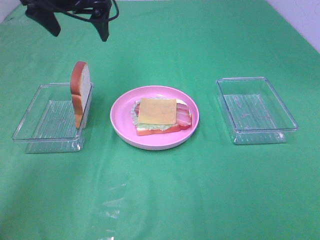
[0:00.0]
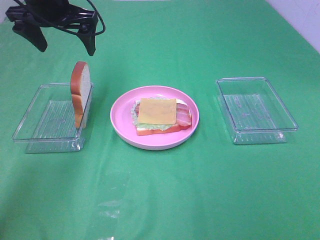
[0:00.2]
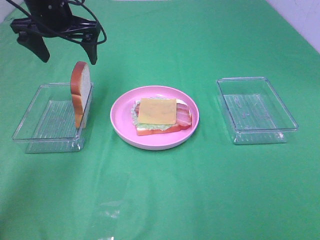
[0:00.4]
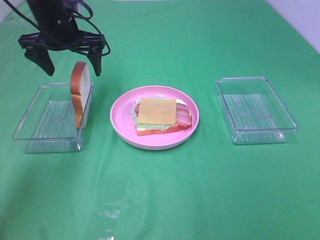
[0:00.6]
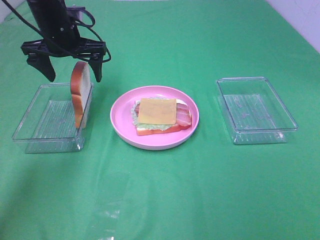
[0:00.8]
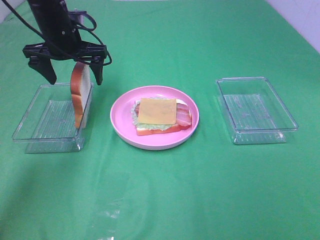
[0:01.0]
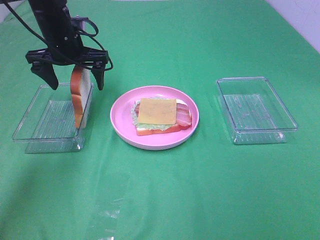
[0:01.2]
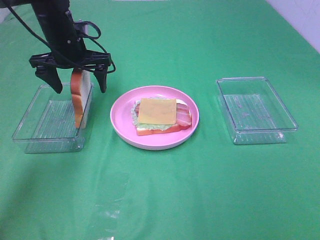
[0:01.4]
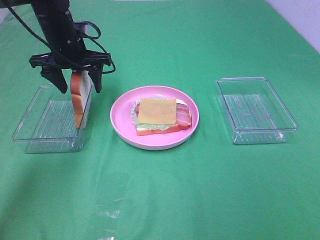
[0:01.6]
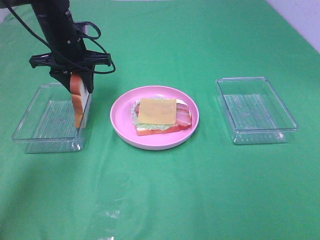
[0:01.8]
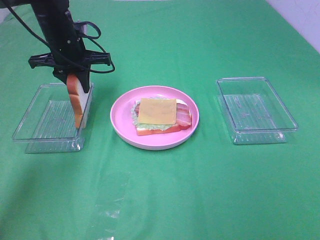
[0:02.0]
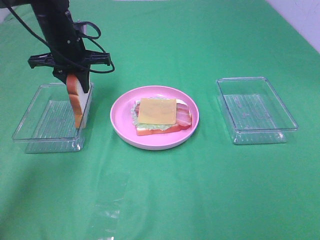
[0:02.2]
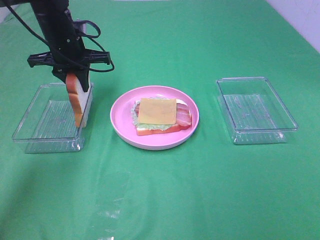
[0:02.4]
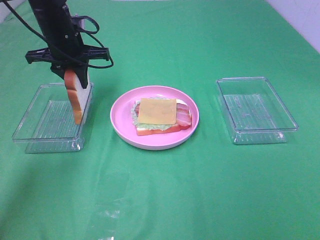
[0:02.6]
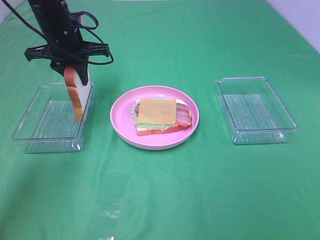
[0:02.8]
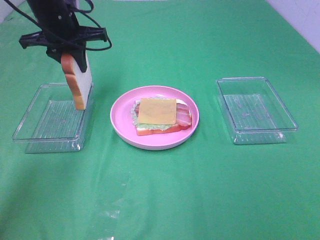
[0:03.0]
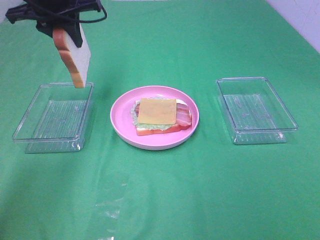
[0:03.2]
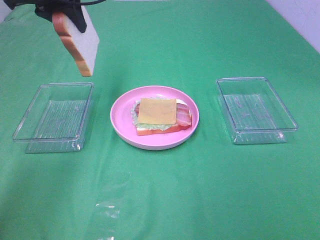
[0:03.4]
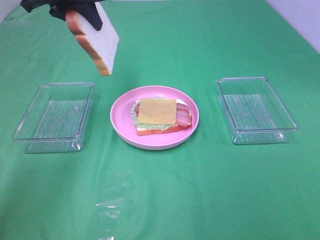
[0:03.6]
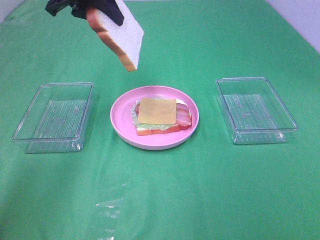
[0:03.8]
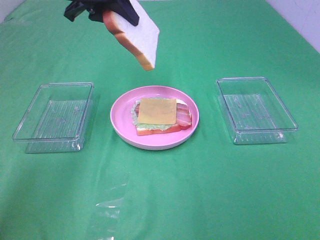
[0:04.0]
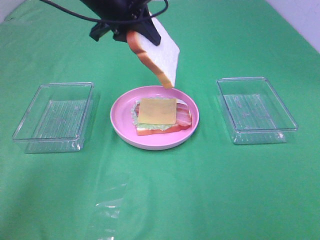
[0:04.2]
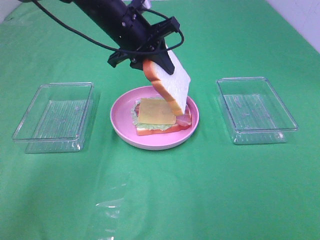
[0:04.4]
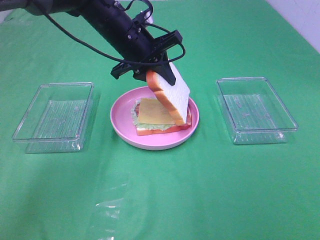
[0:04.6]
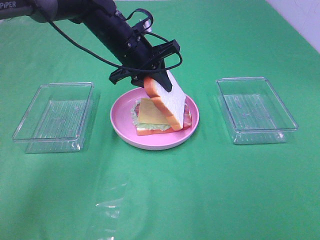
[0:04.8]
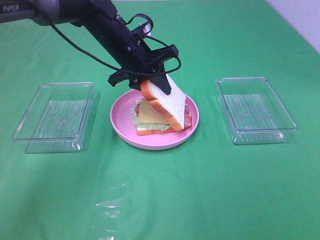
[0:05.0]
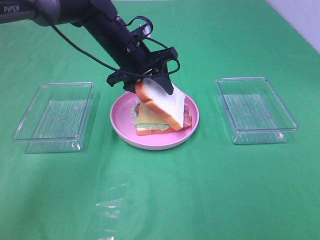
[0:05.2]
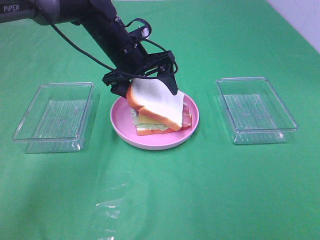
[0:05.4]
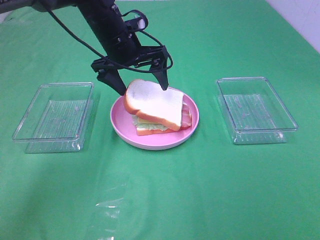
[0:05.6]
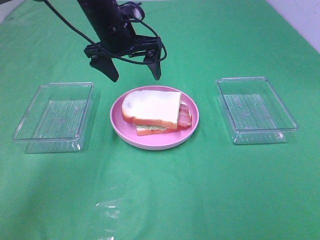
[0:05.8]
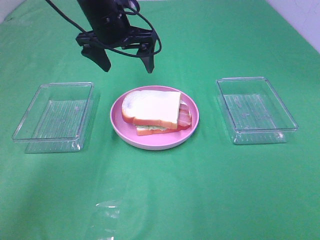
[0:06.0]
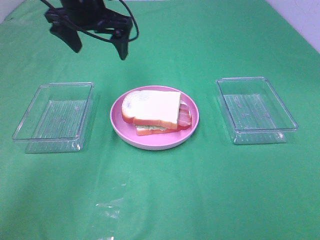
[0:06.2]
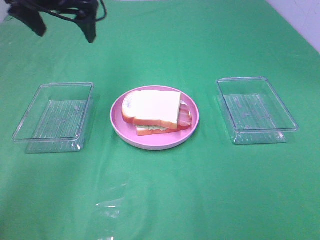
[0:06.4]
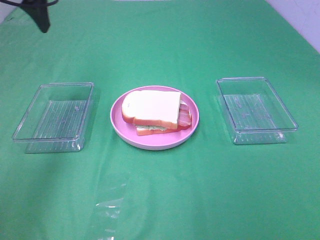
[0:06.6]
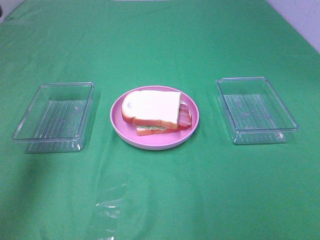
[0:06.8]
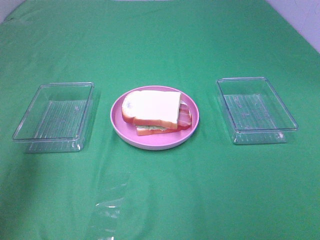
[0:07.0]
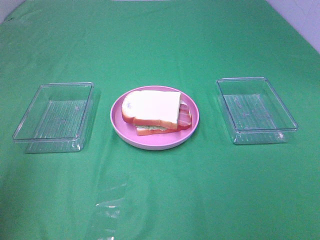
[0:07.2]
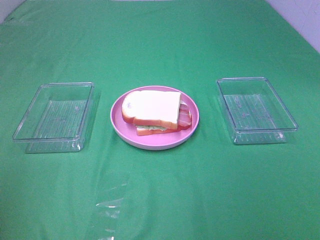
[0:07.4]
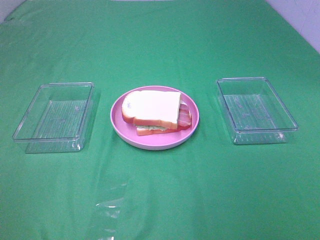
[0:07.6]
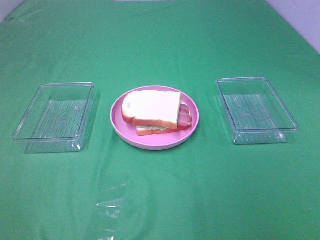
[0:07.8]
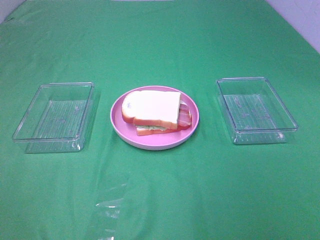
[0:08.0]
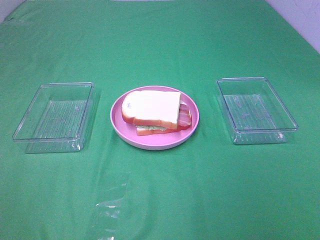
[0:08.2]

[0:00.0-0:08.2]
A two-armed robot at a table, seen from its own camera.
Task of the whole recording: Make sandwiches.
Step, 0:00.0 to 0:02.0: Left hand:grab the bread slice.
Step, 0:02.2 to 0:05.6: Left hand:place the bread slice on the cheese slice.
0:00.0 to 0:01.6: The left gripper shifts some 10 cm downward.
0:01.6 to 0:03.2: The left gripper is displaced upward by roughly 10 cm, and closes its fingers.
0:03.2 to 0:05.0: The left gripper moves to the right and downward, about 15 cm.
0:05.0 to 0:06.6: The left gripper travels to the left and upward by roughly 25 cm, and opens up.
0:06.6 to 0:08.2: The left gripper travels backward by some 40 cm.

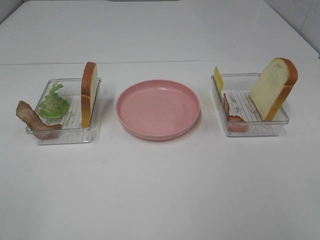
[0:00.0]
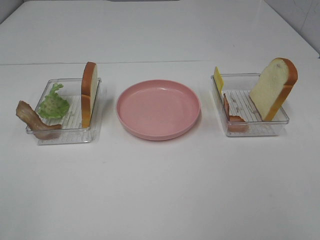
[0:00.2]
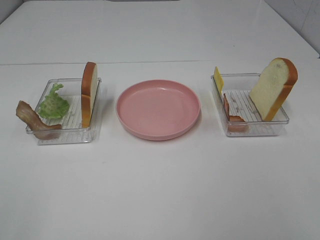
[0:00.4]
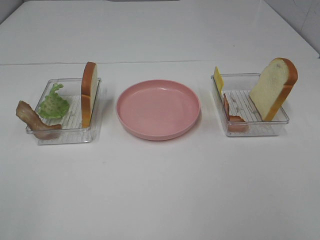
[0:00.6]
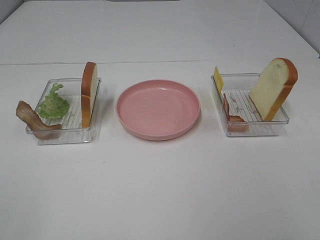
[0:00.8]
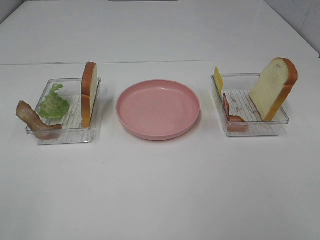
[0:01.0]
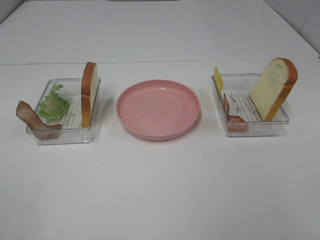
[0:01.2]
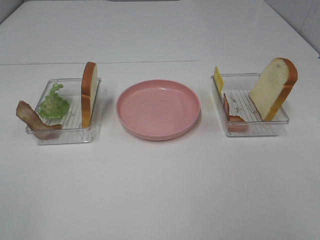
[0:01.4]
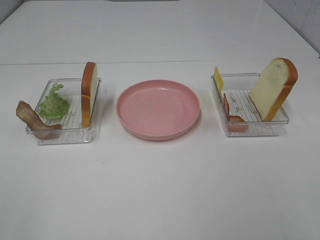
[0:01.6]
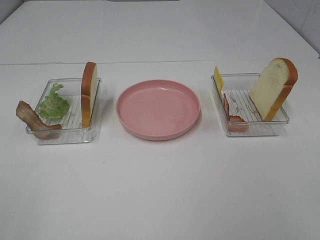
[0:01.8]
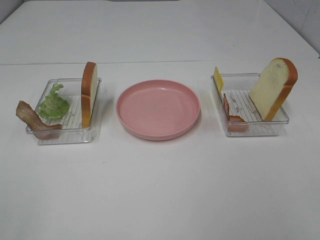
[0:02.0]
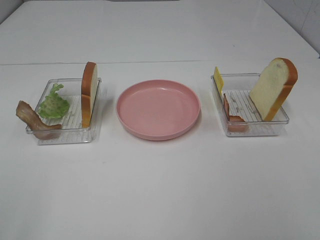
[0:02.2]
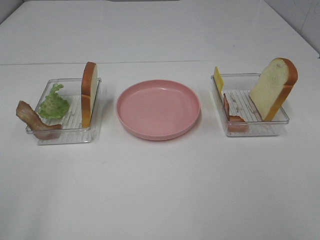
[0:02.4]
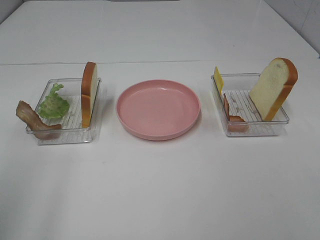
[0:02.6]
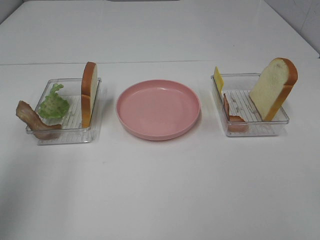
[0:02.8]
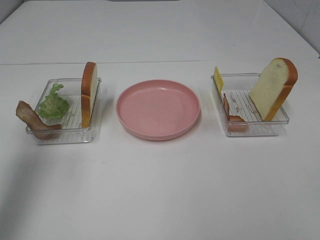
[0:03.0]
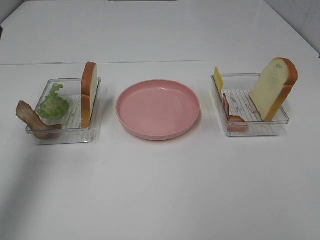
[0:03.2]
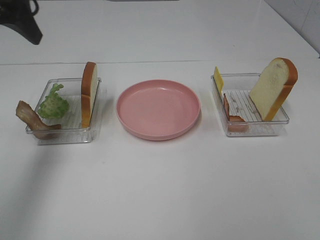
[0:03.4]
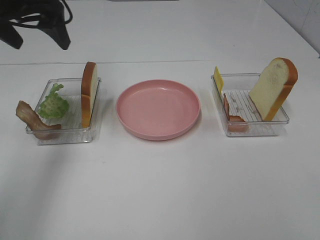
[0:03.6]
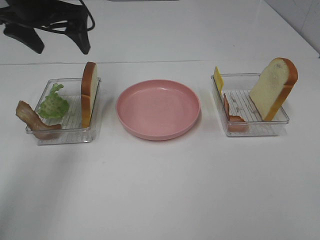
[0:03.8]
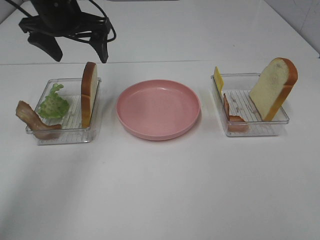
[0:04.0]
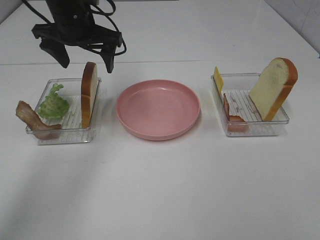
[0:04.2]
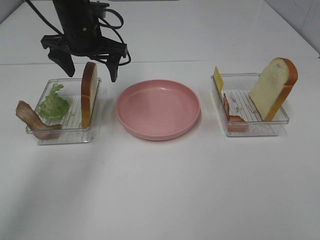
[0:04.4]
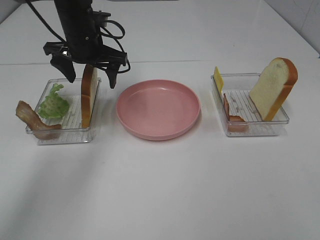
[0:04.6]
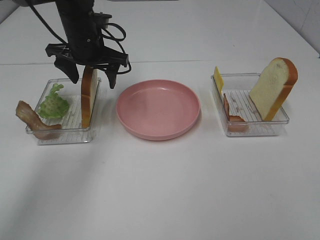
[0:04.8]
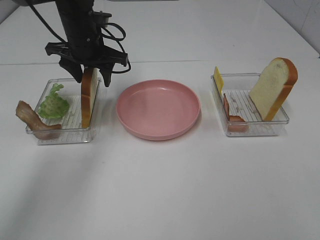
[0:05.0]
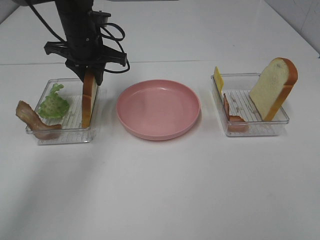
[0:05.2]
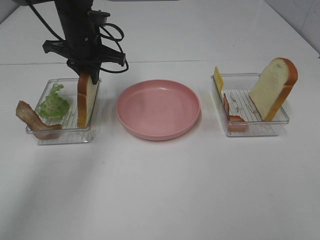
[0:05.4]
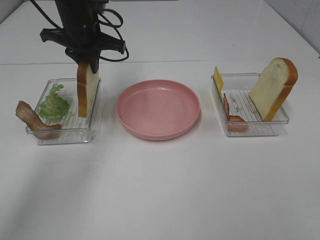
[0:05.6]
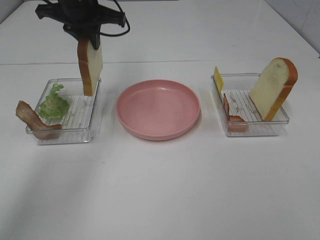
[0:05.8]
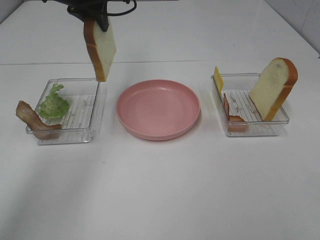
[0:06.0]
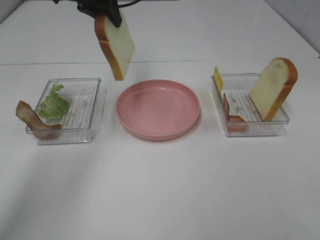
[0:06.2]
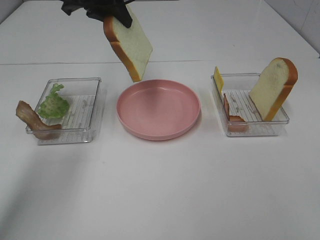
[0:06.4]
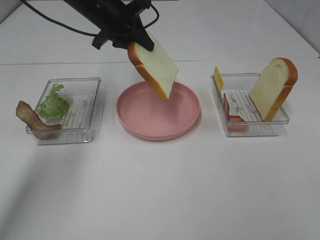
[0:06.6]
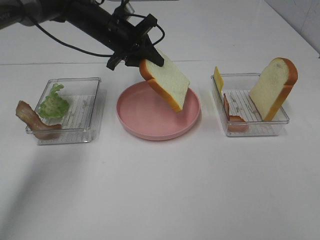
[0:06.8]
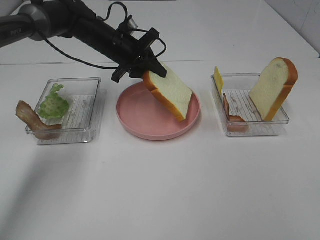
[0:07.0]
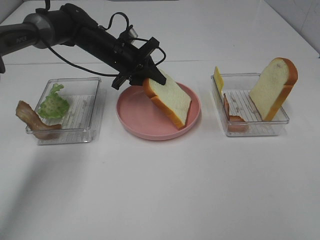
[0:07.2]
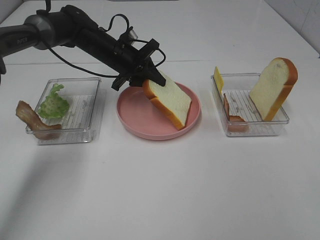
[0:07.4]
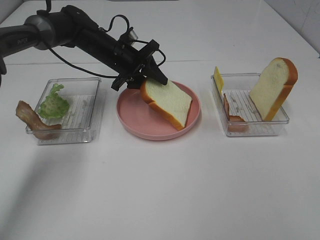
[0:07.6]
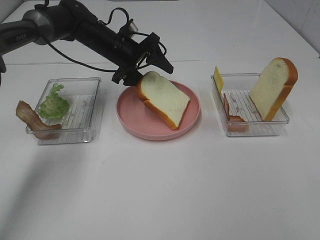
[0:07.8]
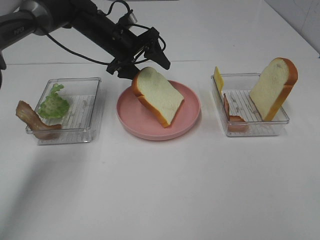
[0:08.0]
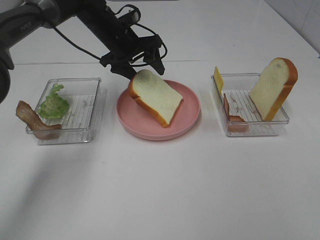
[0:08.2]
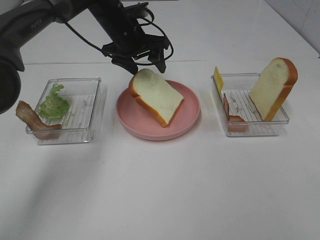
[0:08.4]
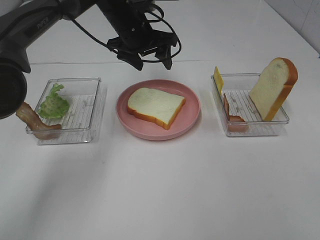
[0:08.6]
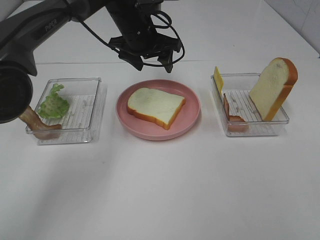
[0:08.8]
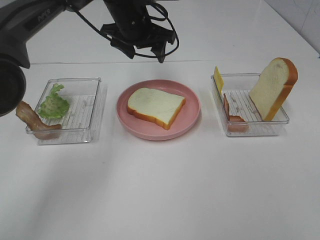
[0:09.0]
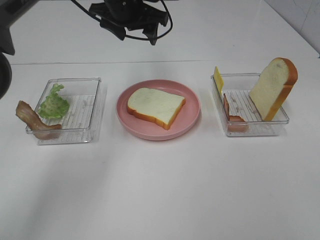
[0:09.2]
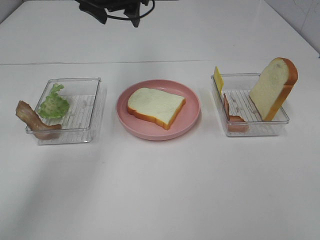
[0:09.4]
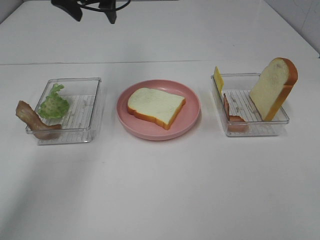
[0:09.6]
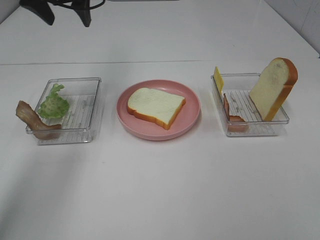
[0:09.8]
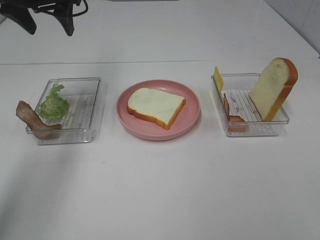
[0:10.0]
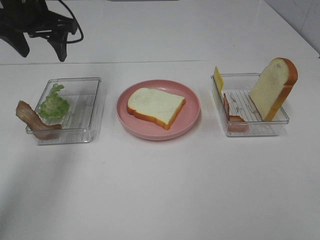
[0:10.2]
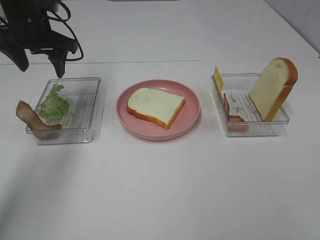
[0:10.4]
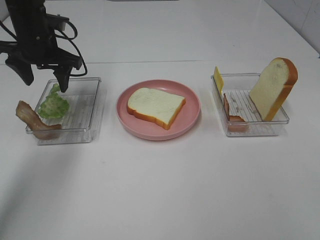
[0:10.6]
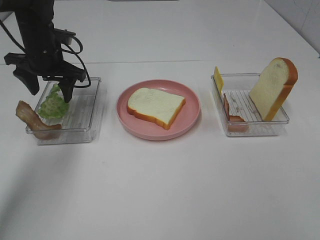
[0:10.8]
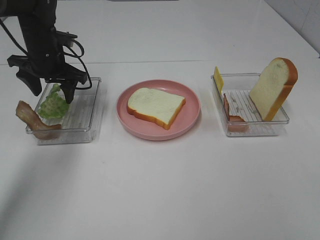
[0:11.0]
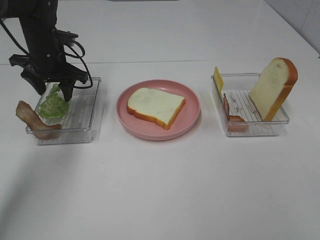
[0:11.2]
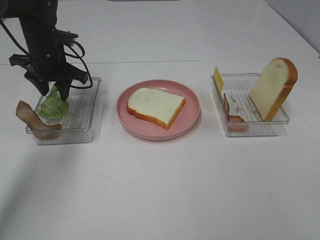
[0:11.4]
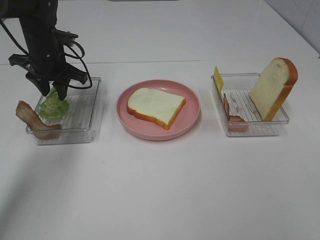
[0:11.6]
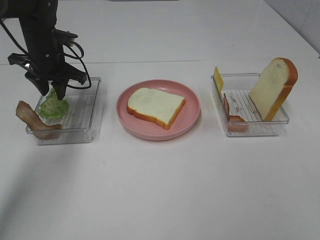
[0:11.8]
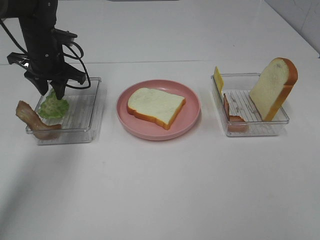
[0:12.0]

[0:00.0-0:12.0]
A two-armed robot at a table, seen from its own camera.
Task of the whole recording: Make sandwiches.
Step, 0:00.0 to 0:05.2: Left hand:grab the bread slice.
Step, 0:05.4 to 0:08.8: Left hand:place the bread slice on the plate.
0:00.0 to 0:01.6: Both grippers stay about where they are.
0:01.6 to 0:03.0: The left gripper travels forward by roughly 25 cm.
0:03.0 to 0:04.4: The left gripper moves forward, to the right and downward, some 30 cm.
0:04.4 to 0:06.0: The left gripper travels upward by some 10 cm, and closes its fingers.
0:06.0 to 0:07.6: The left gripper goes some 20 cm downward.
0:07.6 to 0:09.0: The left gripper heads upward, covering some 10 cm.
0:09.0 to 0:10.4: The left gripper moves to the left, approximately 15 cm.
0:10.4 to 0:12.0: The left gripper travels downward by about 5 cm.

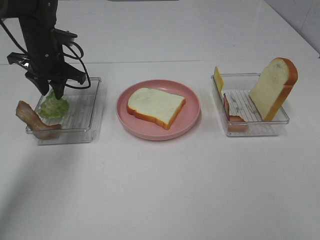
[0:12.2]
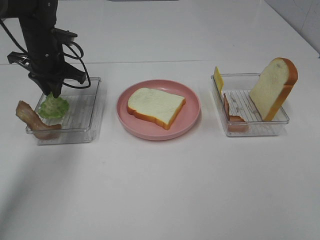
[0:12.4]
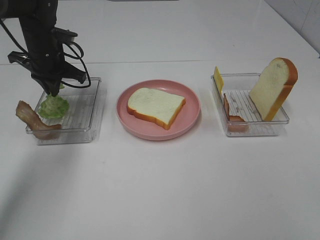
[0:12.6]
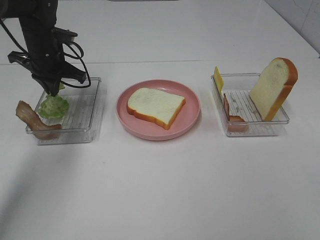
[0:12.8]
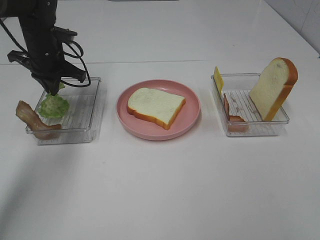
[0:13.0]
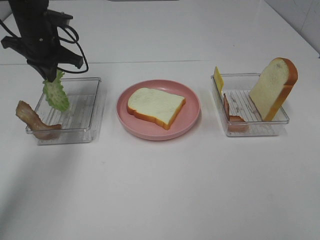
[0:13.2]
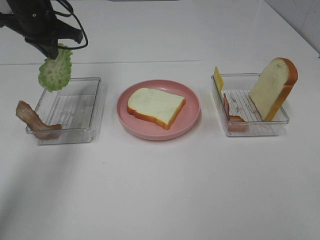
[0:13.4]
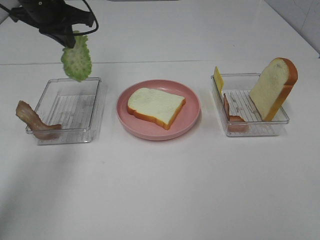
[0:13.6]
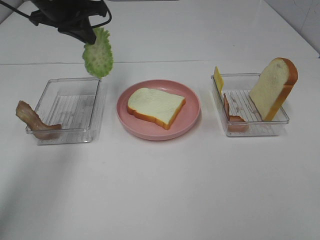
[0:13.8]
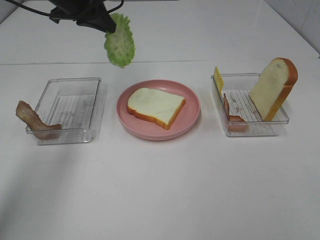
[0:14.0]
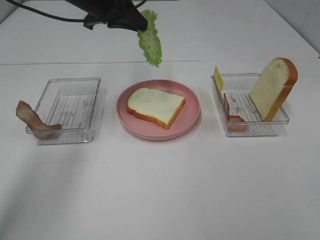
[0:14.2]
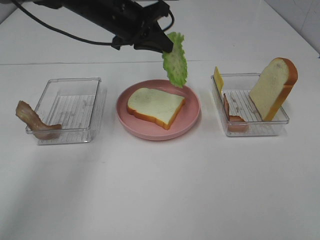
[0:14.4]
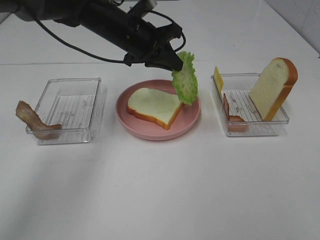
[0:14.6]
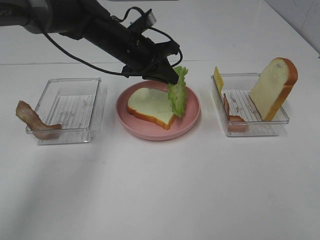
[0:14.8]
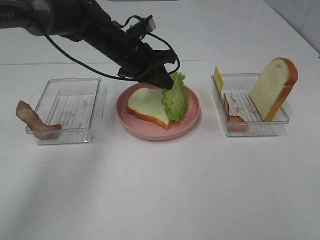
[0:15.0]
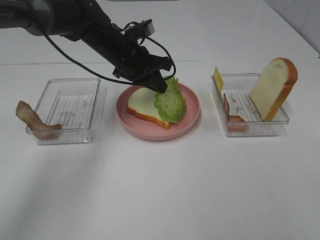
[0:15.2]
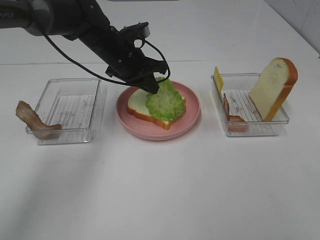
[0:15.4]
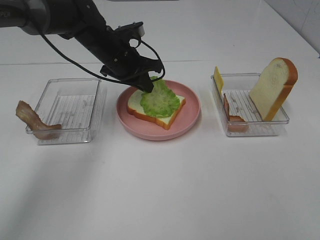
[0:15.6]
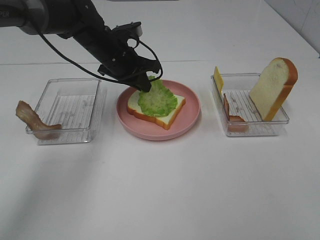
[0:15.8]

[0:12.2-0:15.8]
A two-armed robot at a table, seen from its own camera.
Task of the whole recording: Make sandwiches.
0:12.2 to 0:14.0: The left gripper travels upward and to the right by approximately 15 cm, and closes its fingers.
0:14.0 to 0:15.8: The left gripper is displaced downward and to the right by some 15 cm.
